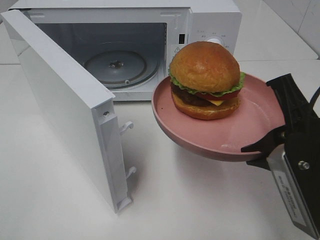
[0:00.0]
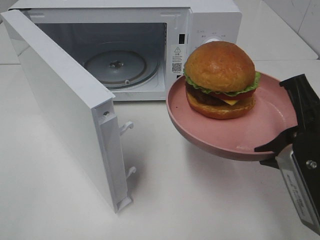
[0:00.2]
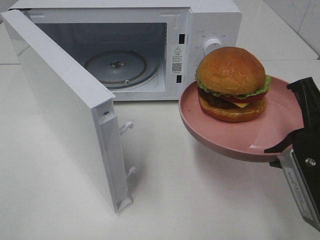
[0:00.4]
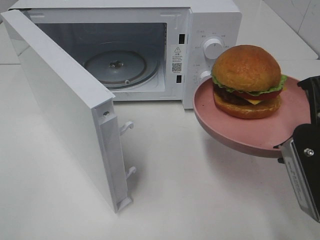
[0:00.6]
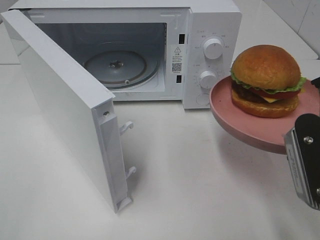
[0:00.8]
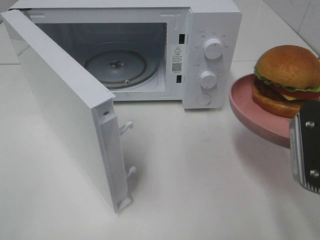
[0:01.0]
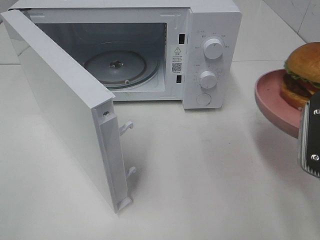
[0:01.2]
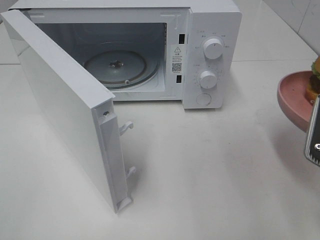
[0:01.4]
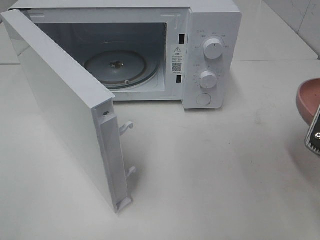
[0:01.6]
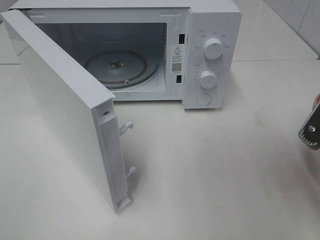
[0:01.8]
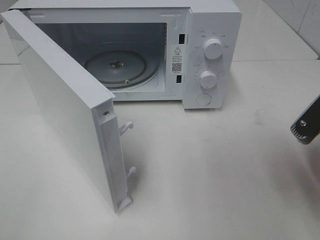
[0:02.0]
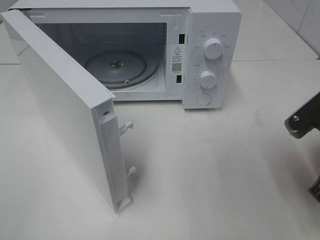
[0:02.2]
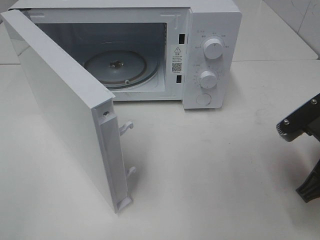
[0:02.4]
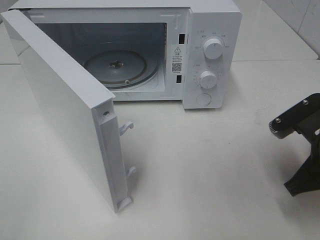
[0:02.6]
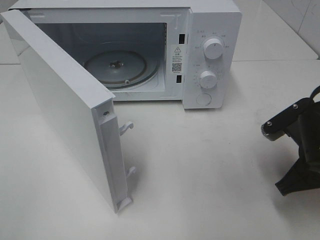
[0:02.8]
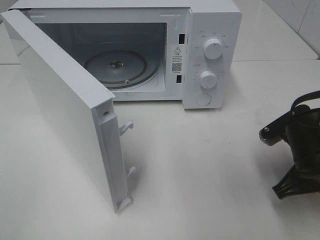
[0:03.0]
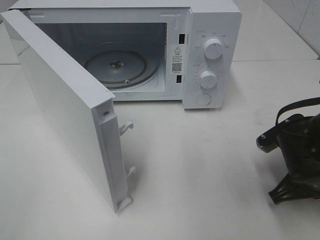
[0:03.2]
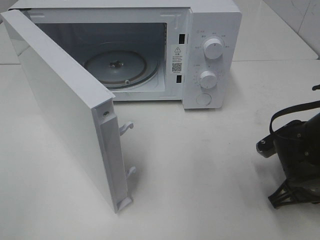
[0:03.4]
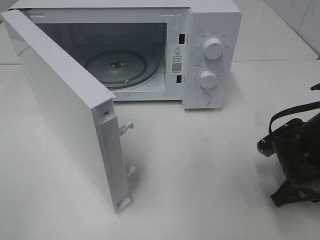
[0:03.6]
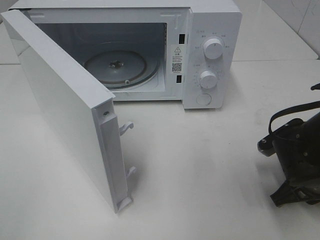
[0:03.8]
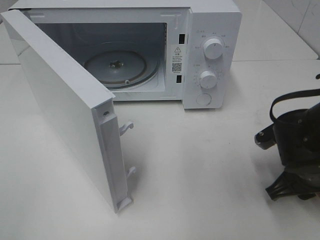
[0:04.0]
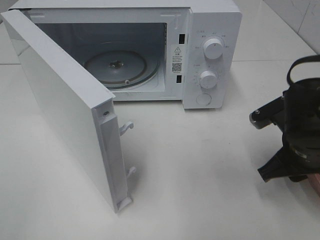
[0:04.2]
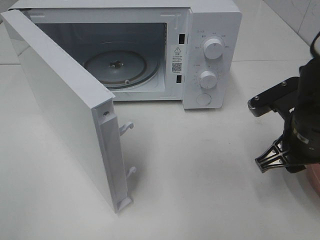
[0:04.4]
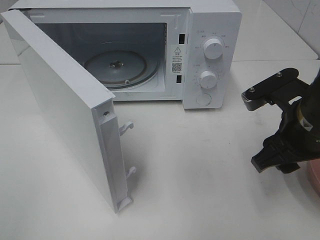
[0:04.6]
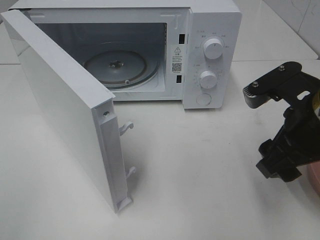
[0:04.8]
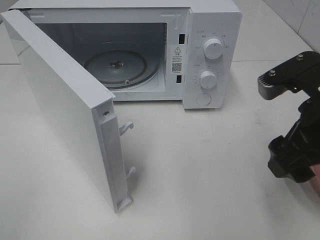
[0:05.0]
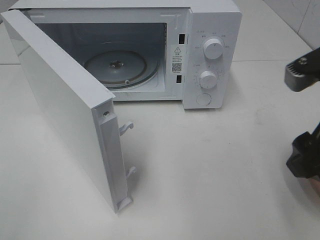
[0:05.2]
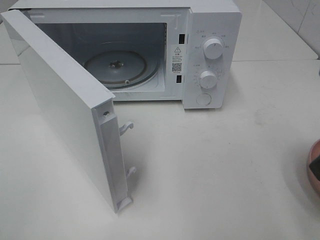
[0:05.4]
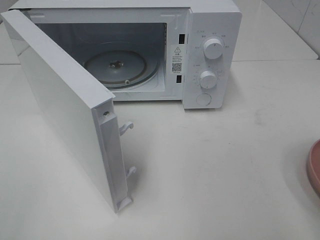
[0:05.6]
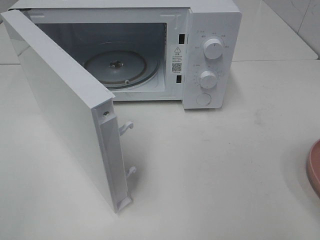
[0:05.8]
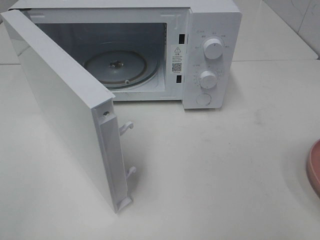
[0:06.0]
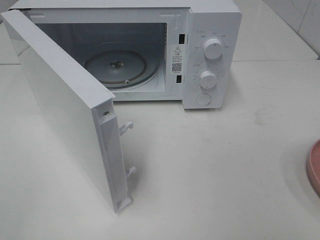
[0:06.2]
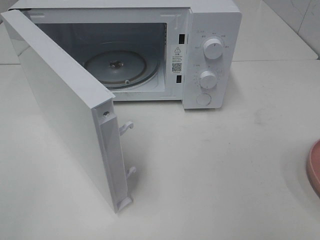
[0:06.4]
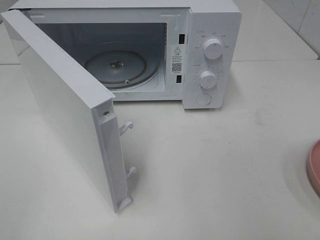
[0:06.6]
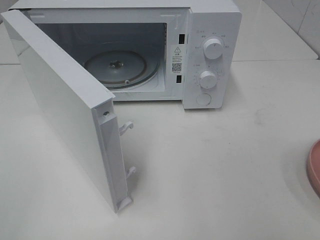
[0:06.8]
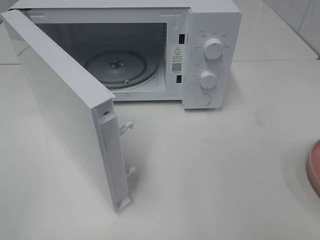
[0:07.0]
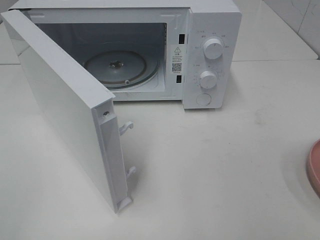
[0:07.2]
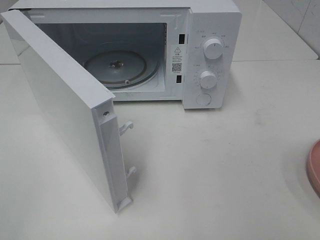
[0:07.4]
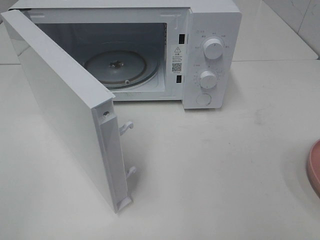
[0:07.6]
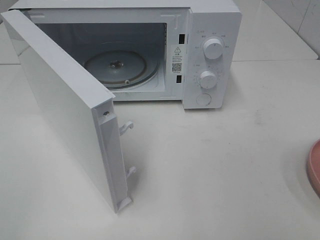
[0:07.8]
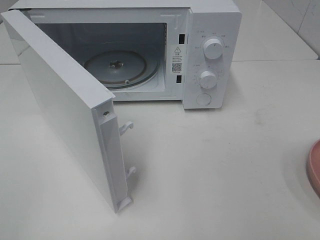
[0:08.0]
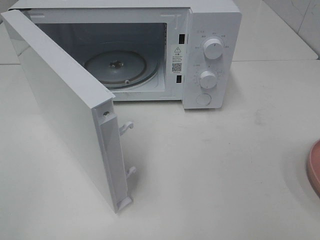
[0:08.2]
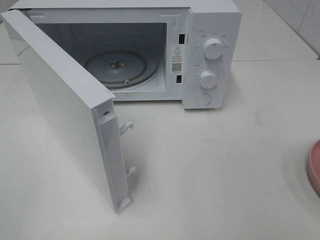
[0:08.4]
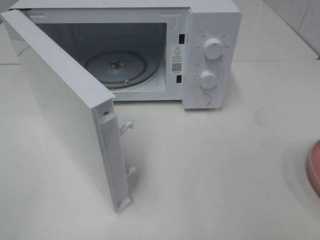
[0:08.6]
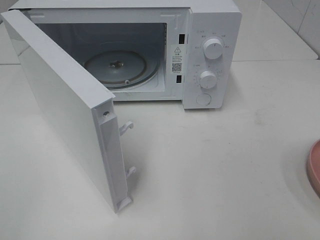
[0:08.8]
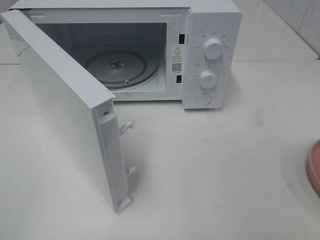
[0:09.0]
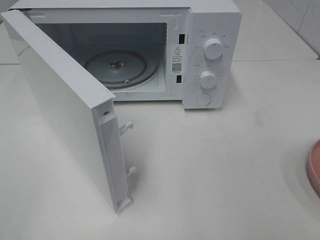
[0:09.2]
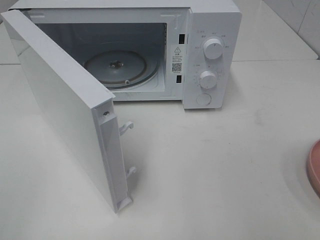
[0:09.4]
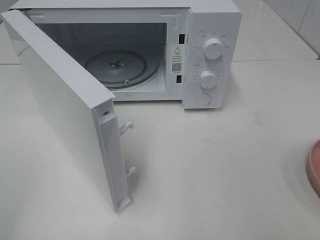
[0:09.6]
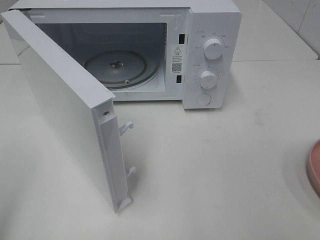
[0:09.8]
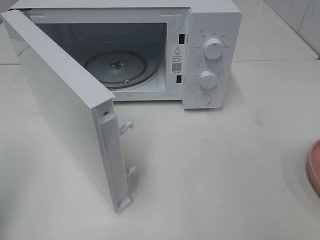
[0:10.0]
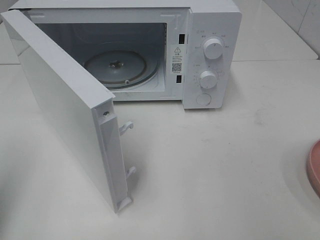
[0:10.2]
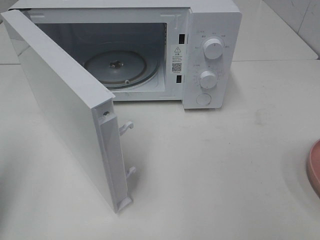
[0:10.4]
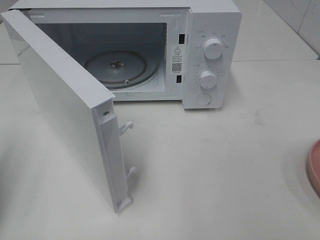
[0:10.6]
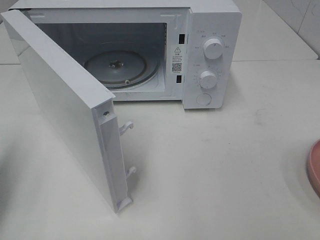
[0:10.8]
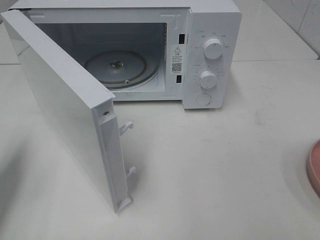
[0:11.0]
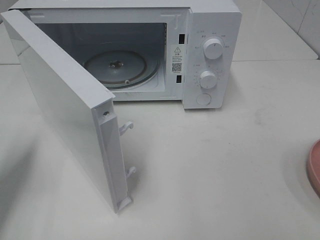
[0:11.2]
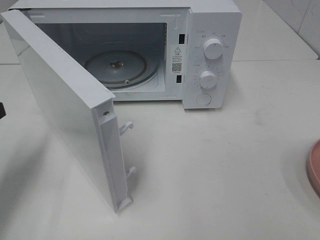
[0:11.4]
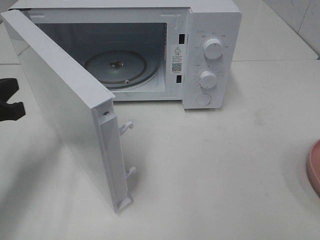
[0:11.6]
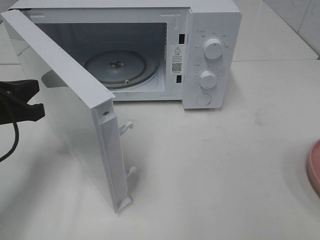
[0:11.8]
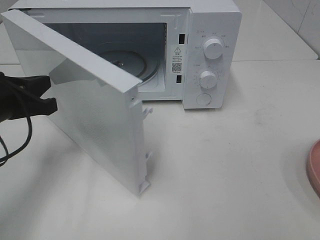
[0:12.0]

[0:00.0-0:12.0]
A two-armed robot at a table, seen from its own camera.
Task of the whole recording: Heat the burger.
Step, 0:00.0 to 0:04.0: Right hand: place the plate on the table.
0:00.0 to 0:01.6: The right gripper shifts some 5 cm to the right.
0:01.6 to 0:03.0: The right gripper heads downward and forward, covering about 10 cm.
0:03.0 to 0:04.4: The right gripper ends up some 5 cm from where it was, and opens up.
0:04.4 to 0:06.0: The right gripper moves upward, backward and to the right, approximately 20 cm.
0:07.6 to 0:09.0: Both grippers stay put.
0:09.0 to 0:10.4: The left gripper heads forward, covering roughly 15 cm, and closes up.
0:10.4 to 0:12.0: The left gripper heads forward, to the right and downward, covering roughly 15 cm.

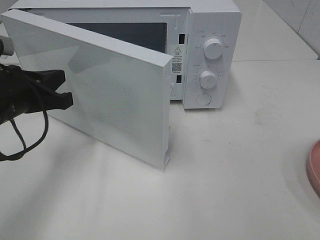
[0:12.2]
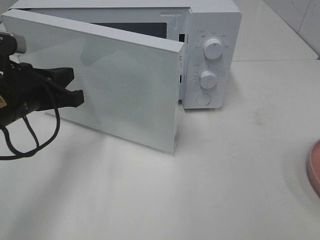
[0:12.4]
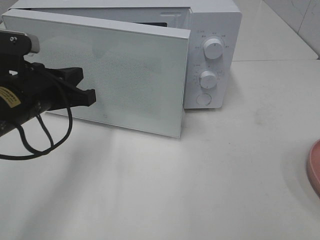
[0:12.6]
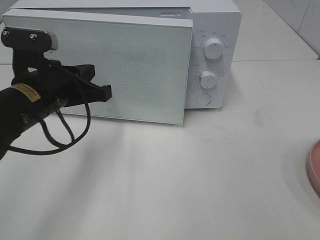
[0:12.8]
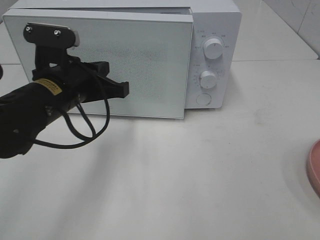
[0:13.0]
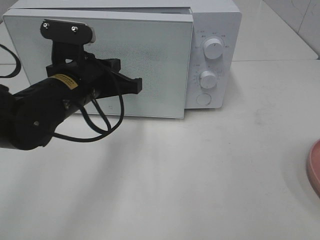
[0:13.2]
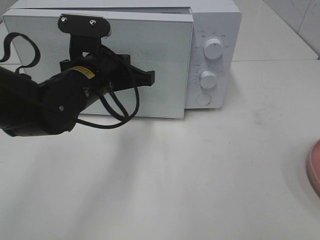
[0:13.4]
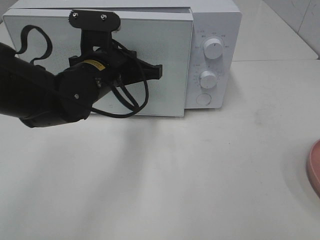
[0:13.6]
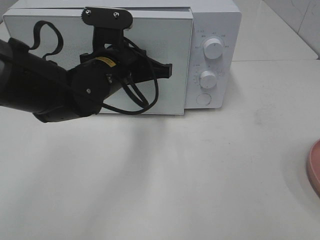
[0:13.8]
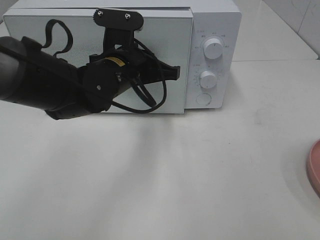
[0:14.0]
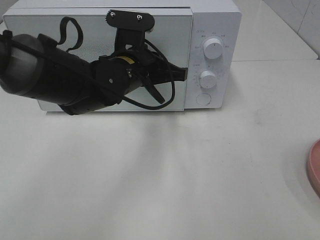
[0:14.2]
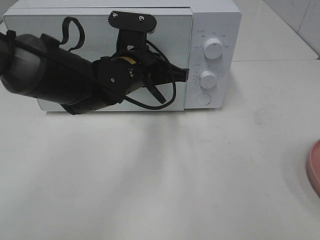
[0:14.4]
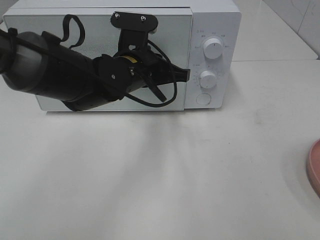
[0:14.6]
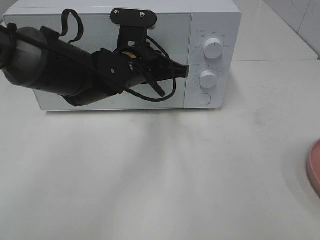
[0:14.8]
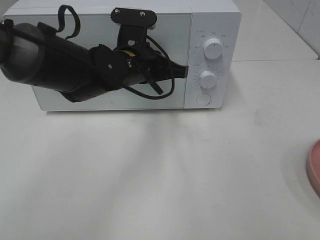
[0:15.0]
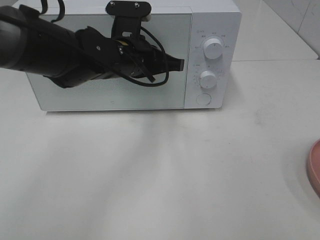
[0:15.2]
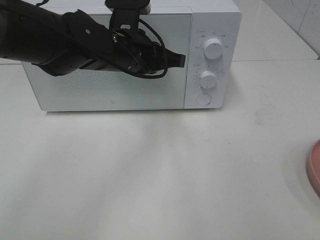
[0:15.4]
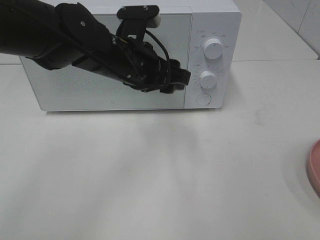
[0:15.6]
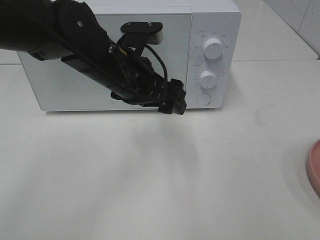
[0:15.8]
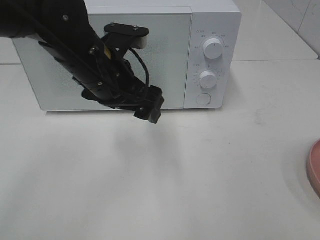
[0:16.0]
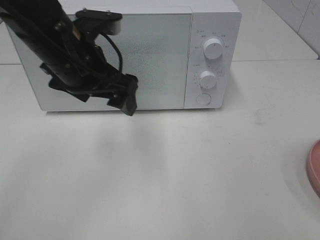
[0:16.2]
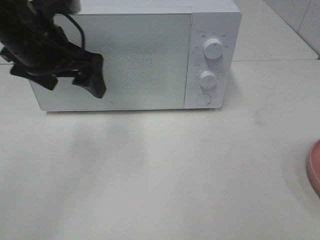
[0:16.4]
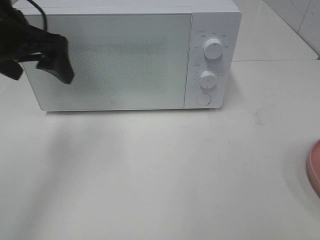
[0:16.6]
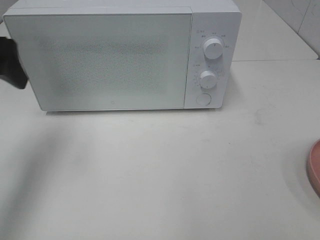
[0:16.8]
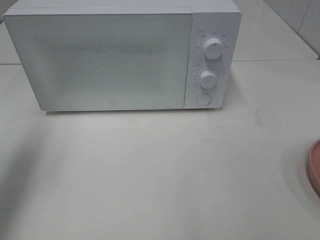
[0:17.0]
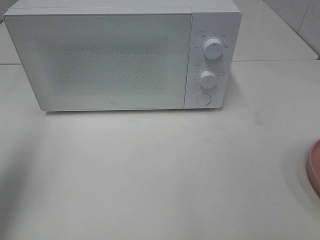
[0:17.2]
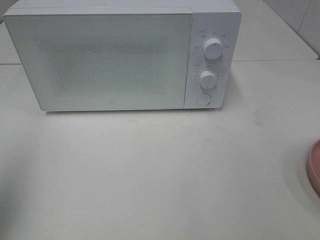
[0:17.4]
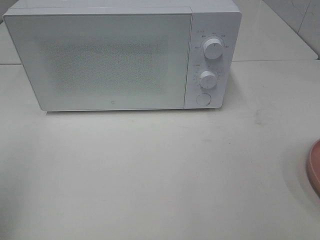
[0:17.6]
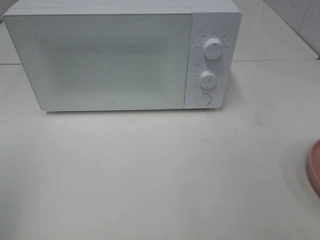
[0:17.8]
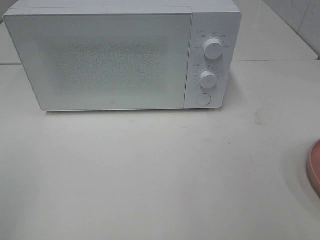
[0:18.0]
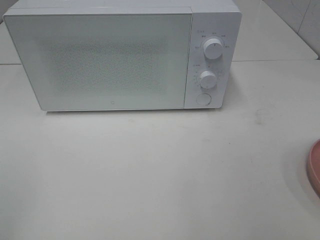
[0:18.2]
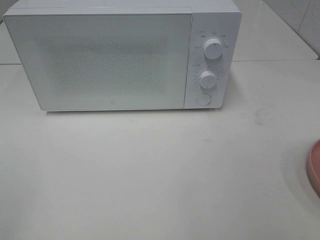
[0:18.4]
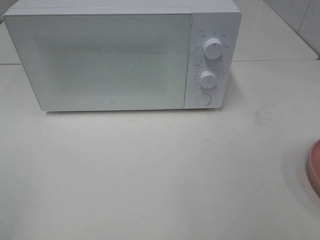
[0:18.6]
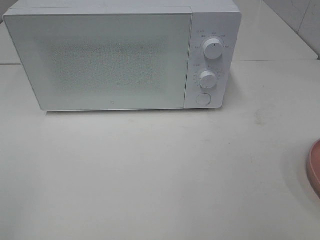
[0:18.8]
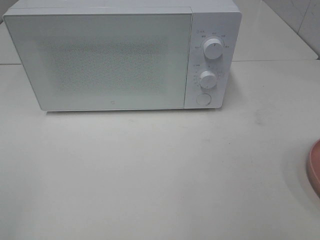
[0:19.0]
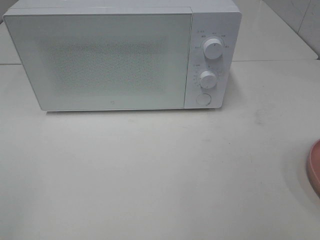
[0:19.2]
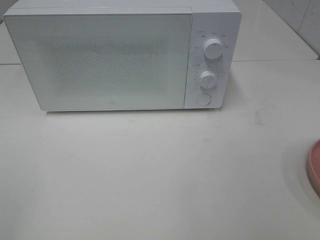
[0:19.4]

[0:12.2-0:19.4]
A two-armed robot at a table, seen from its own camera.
Task of the whole recording: Heat the burger.
Step, 0:12.2 to 0:15.4: Left hand: close the microwave door.
0:12.2 to 0:13.6: The left gripper heads to the right and forward, covering approximately 15 cm.
0:13.6 to 0:15.0: The grippers move only a little.
0:15.0 to 0:16.6: The left gripper travels to the left and upward by approximately 20 cm, and opens up.
0:16.6 to 0:18.0: The left gripper shifts roughly 30 cm backward and to the left.

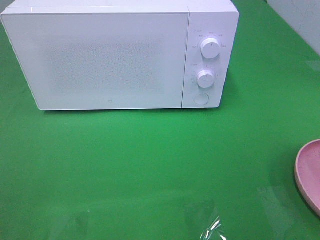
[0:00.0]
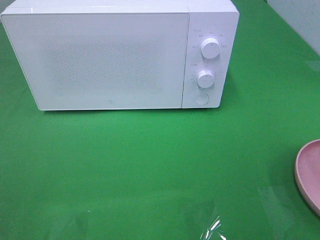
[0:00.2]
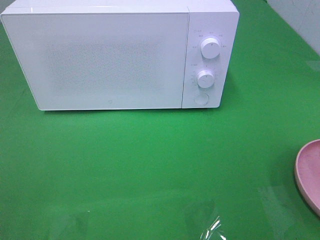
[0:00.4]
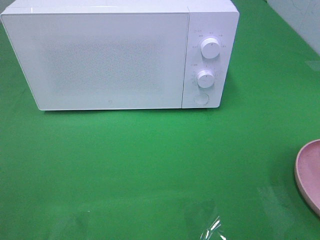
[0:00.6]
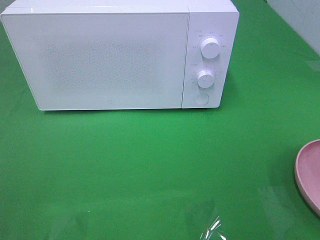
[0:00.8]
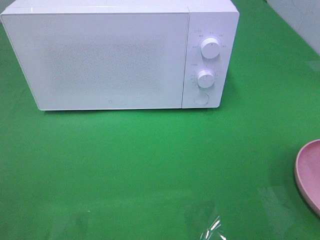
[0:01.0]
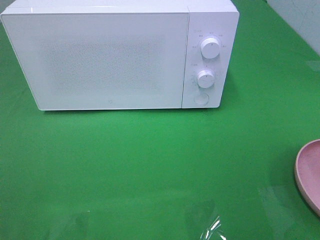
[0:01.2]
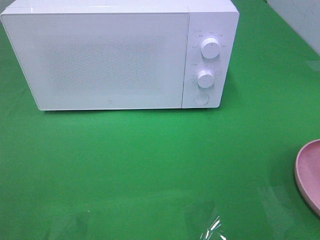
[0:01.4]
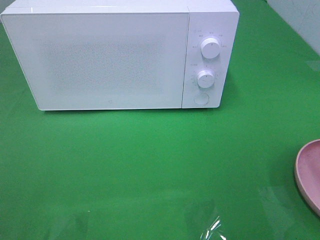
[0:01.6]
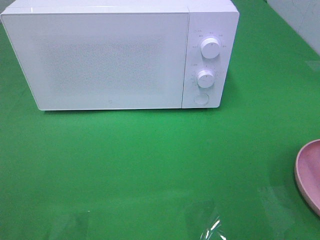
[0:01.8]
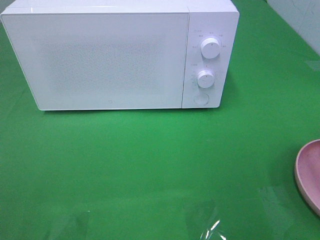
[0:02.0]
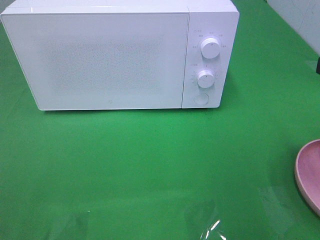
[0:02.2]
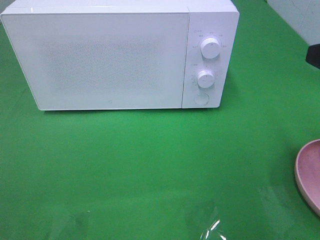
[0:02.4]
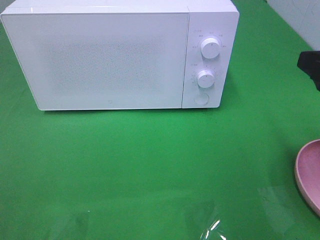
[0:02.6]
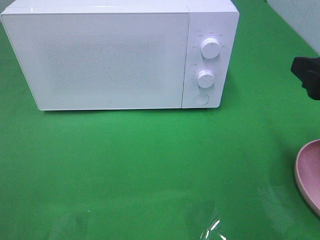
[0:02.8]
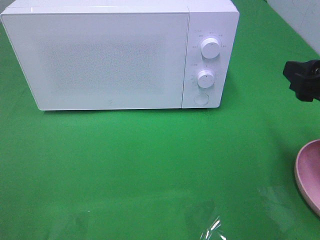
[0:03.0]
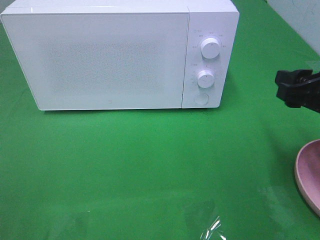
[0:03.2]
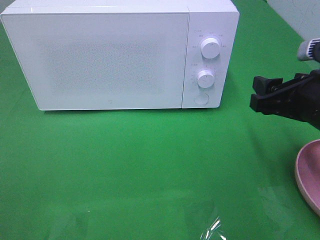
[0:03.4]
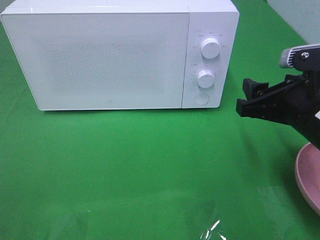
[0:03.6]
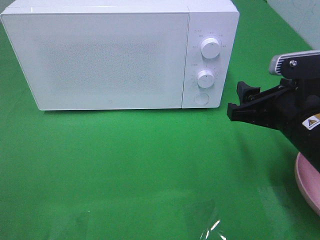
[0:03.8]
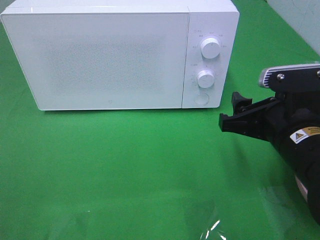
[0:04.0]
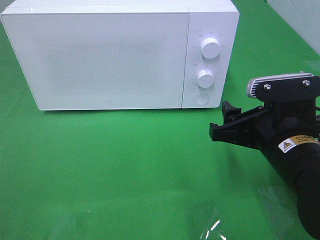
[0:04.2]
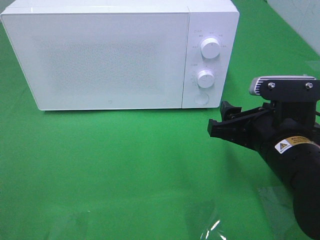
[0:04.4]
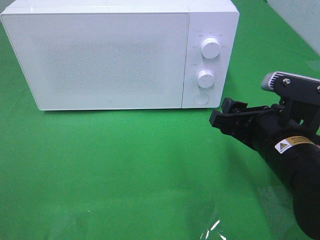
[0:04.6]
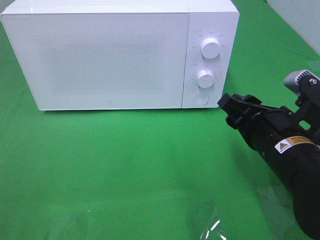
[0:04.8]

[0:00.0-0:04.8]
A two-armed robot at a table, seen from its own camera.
Task of the whole recording: Heat the burger.
0:01.6 to 0:03.2: The right gripper shifts some 15 cm forward and downward.
0:03.2 to 0:04.8: The right gripper goes approximately 10 cm to the left and downward.
